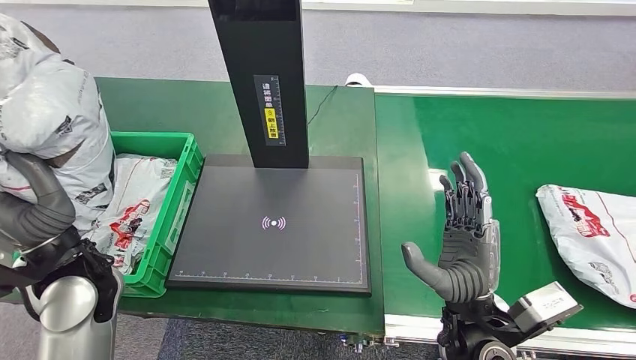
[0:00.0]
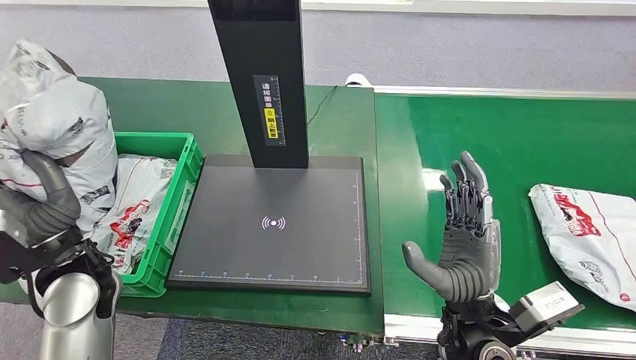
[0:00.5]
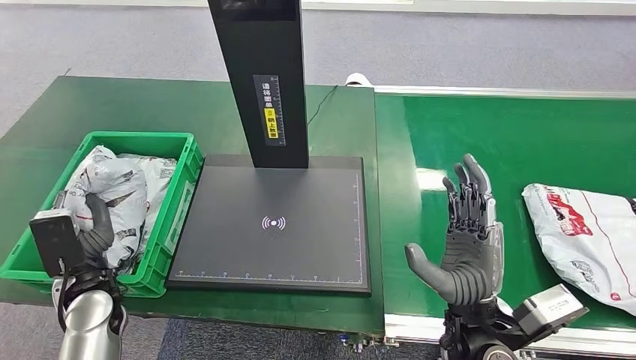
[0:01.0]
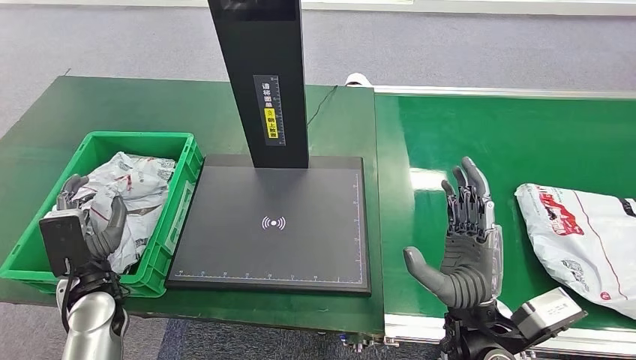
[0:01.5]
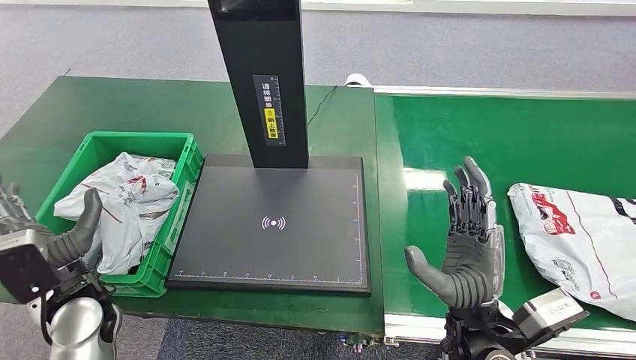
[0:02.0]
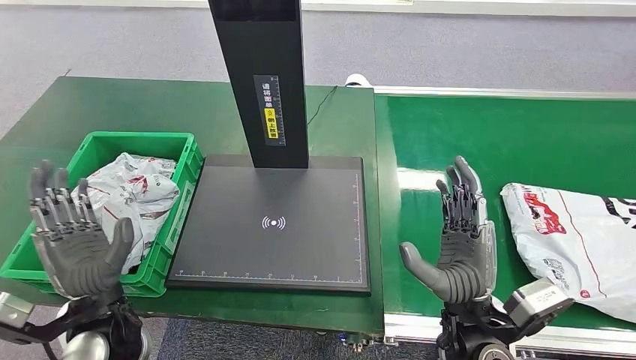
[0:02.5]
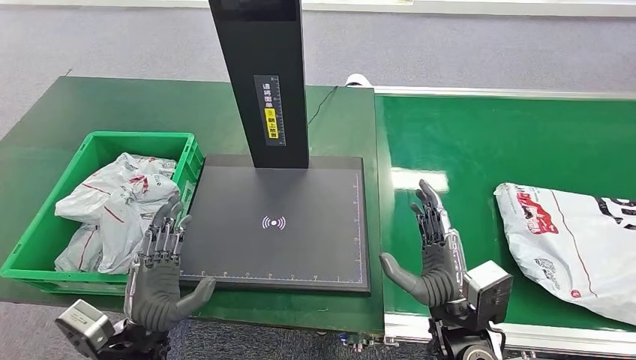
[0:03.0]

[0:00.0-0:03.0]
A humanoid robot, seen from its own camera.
Step, 0:00.0 to 0:03.0: Place the package into the parcel locker.
0:01.5 to 0:03.0: The left hand heads to the right and backward, covering some 15 cm.
